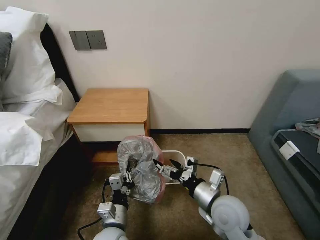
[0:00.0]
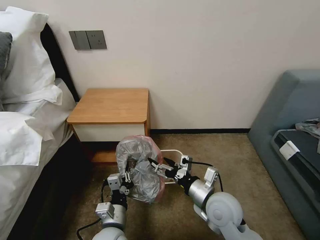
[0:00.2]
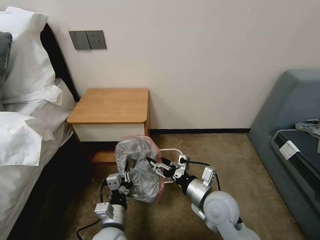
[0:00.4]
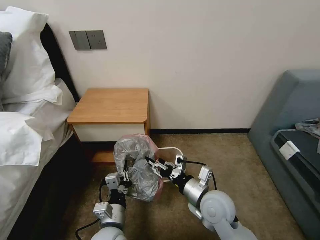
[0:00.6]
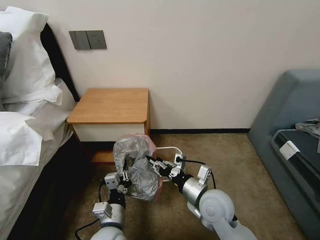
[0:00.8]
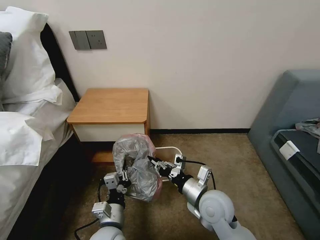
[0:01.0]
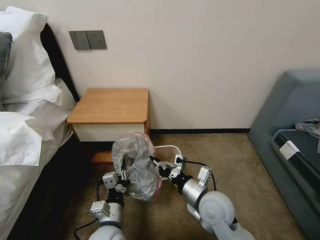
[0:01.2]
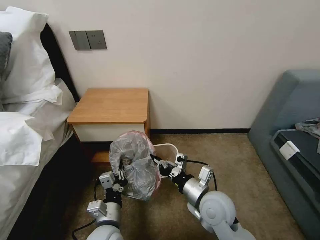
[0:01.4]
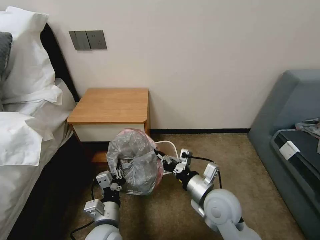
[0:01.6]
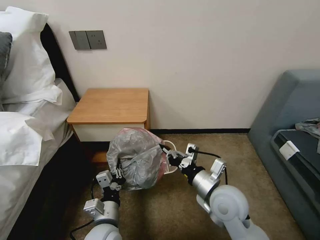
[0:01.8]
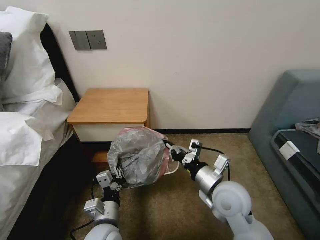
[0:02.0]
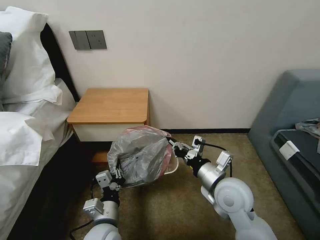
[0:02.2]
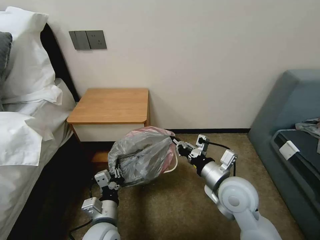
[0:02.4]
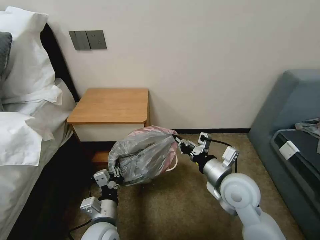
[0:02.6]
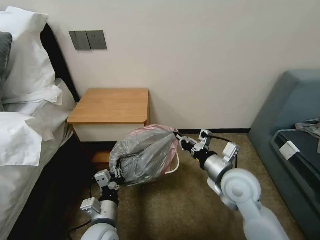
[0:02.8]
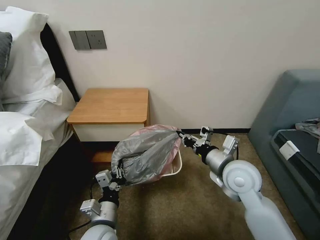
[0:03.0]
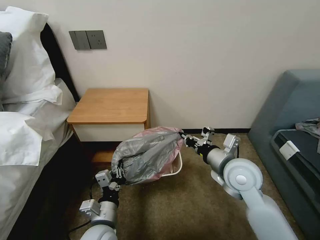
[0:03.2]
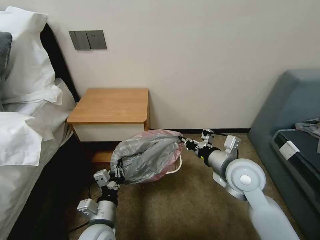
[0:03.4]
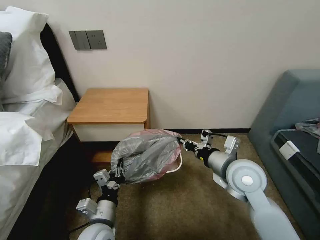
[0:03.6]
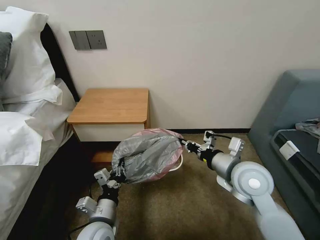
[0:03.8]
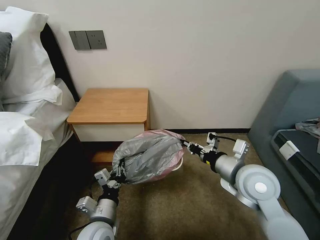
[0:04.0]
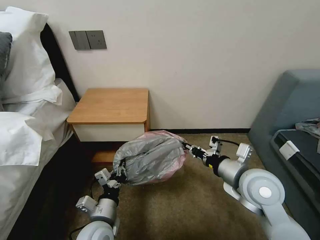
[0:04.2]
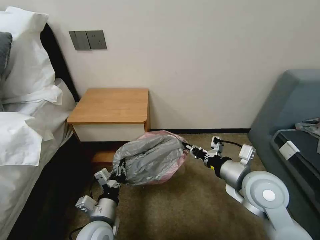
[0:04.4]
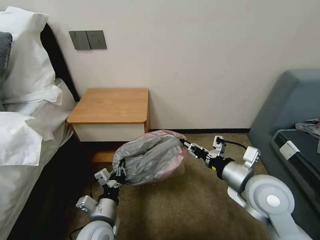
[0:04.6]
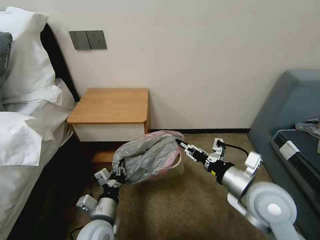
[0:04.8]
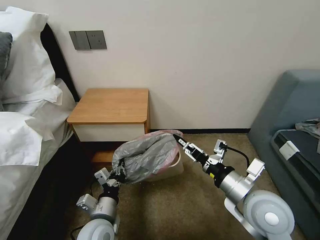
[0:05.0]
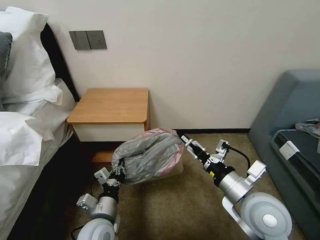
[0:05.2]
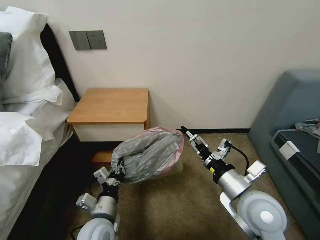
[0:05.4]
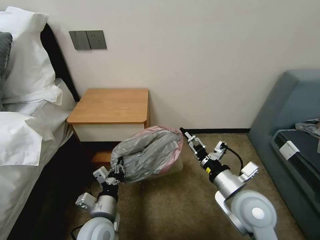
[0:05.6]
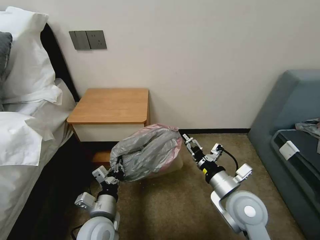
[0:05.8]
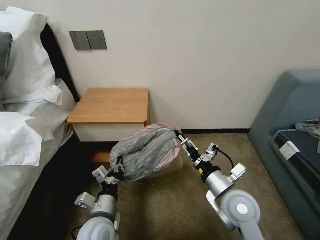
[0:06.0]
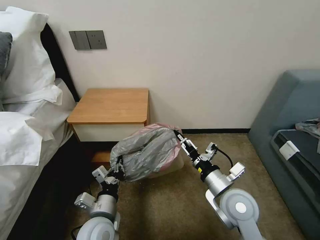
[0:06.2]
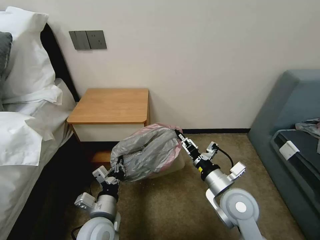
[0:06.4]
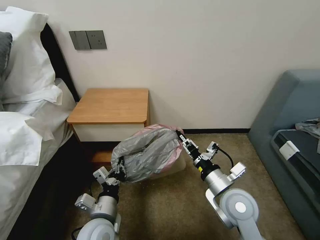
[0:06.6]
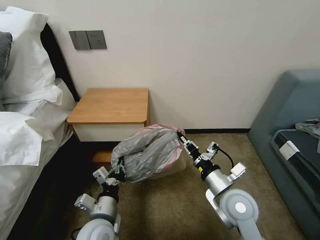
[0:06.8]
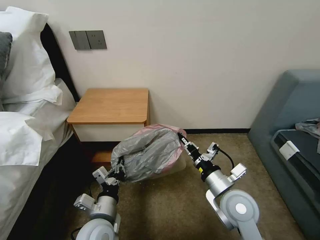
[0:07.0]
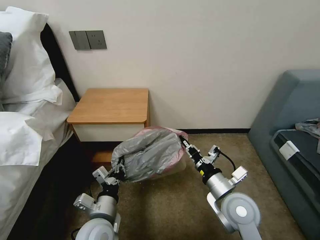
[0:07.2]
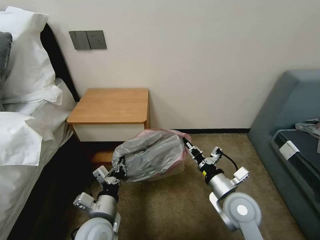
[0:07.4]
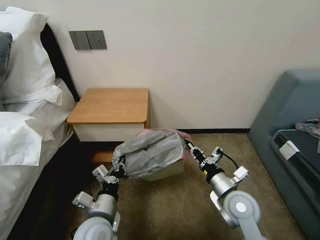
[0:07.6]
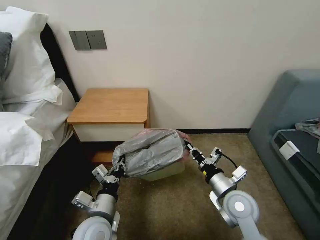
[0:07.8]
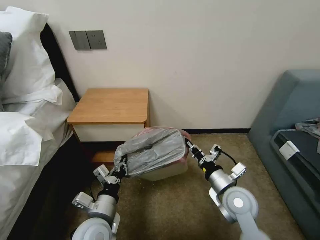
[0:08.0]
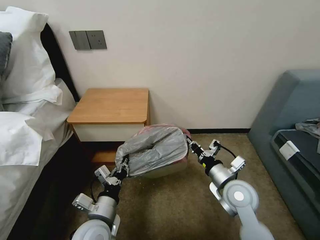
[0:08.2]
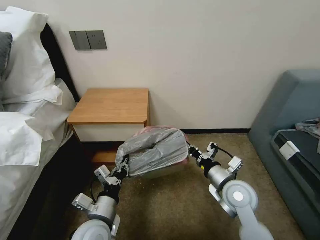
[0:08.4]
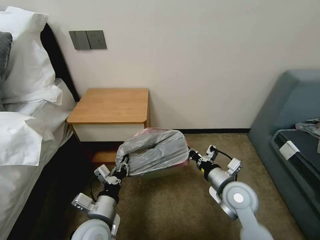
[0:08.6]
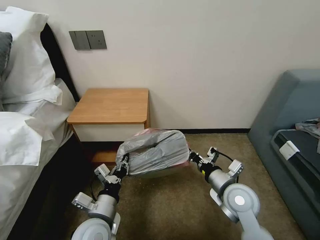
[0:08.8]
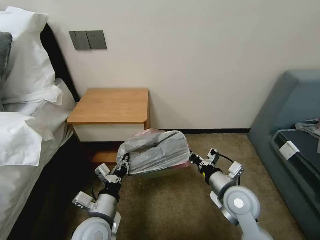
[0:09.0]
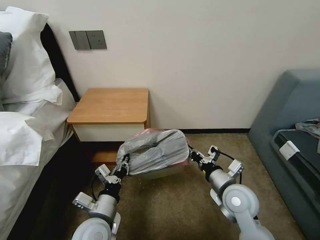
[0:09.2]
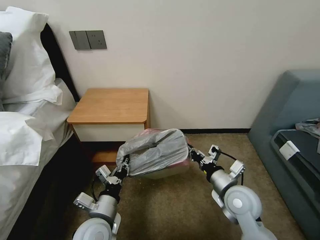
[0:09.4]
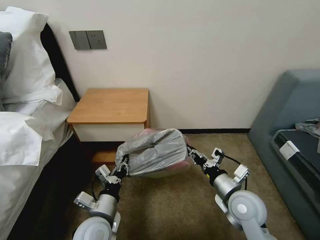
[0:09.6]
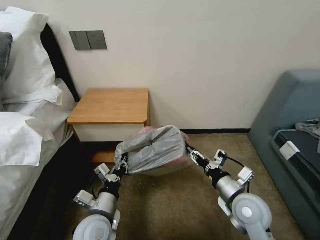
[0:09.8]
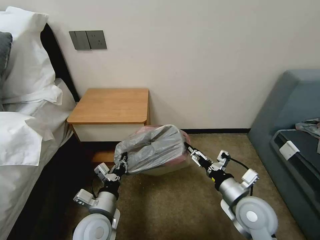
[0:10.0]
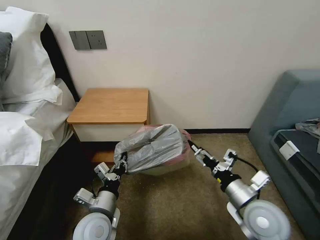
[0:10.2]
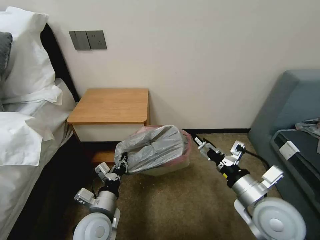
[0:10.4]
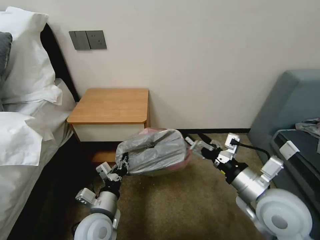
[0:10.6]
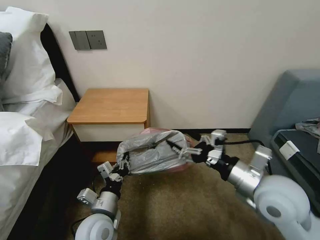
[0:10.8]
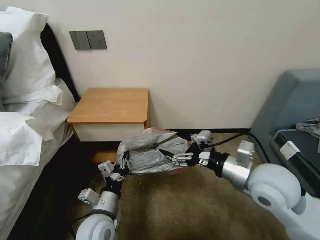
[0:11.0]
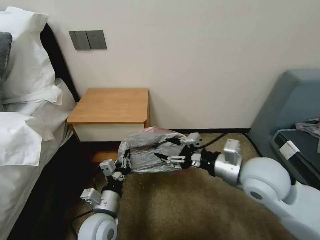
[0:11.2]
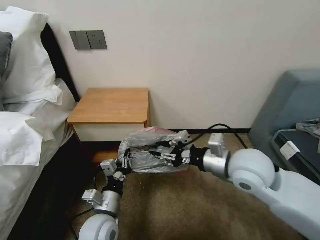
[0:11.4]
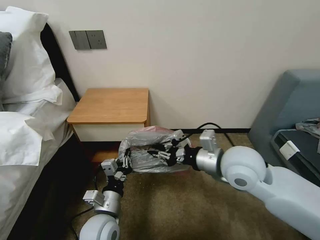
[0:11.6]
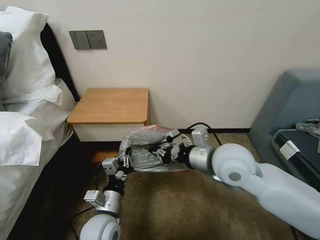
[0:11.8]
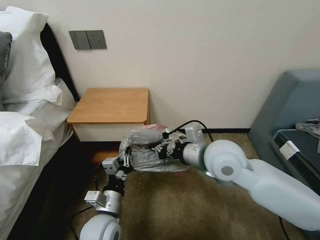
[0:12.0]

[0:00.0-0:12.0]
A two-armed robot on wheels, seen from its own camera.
Task of the whole recording: Pick up the garbage bag from the table and place it over the trash can.
0:00.0 to 0:01.6: The right gripper closes.
0:01.6 to 0:03.0: The right gripper travels upward, forward and to the right by about 10 cm.
0:03.0 to 0:04.4: The right gripper moves some 5 cm.
0:04.4 to 0:06.0: The right gripper moves downward, roughly 5 cm, and opens.
0:06.0 to 0:07.6: The right gripper closes its fingers.
0:07.6 to 0:09.0: There are only small adjustments of the grippers.
0:09.0 to 0:10.4: The right gripper moves upward and backward, some 10 cm, and opens.
0:10.4 to 0:12.0: The right gripper travels forward, to the left and upward by approximately 15 cm, and closes its fingers.

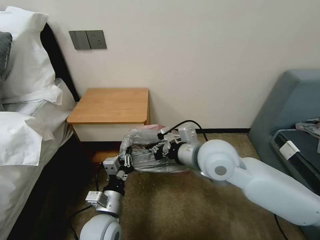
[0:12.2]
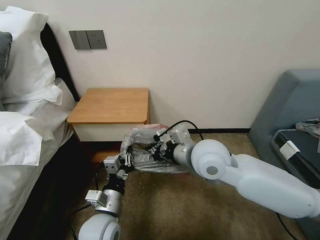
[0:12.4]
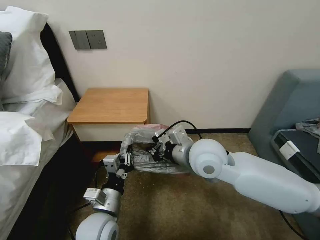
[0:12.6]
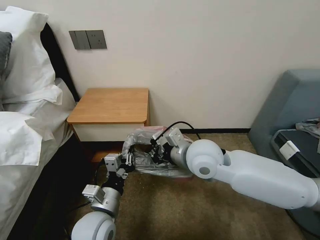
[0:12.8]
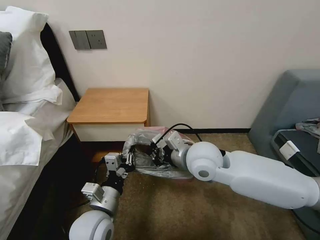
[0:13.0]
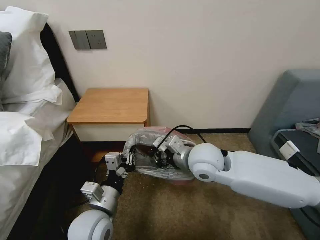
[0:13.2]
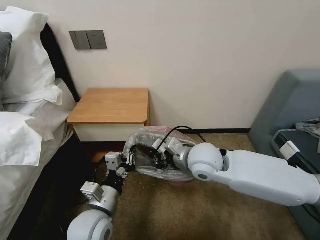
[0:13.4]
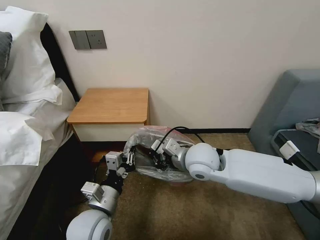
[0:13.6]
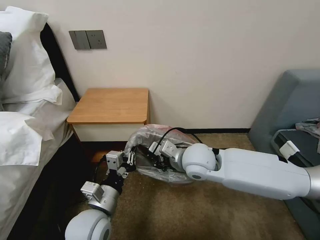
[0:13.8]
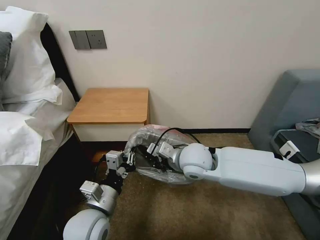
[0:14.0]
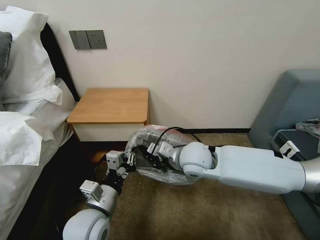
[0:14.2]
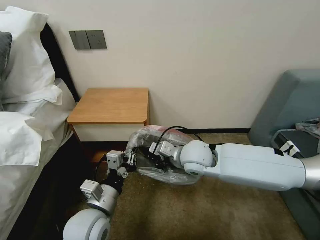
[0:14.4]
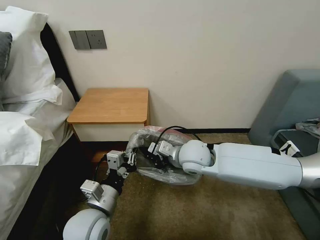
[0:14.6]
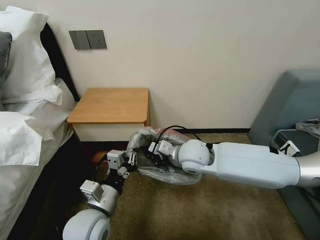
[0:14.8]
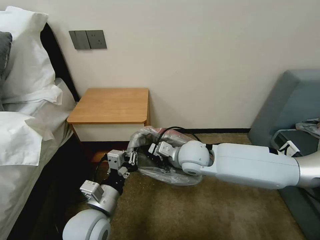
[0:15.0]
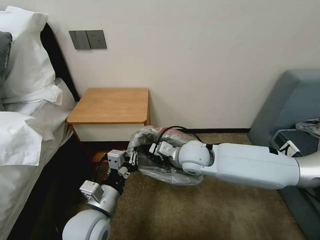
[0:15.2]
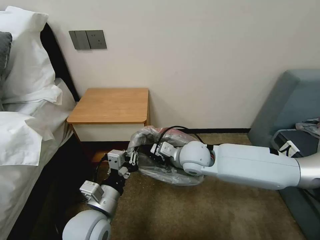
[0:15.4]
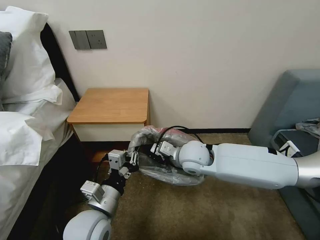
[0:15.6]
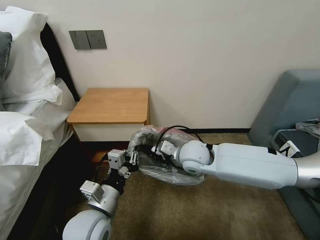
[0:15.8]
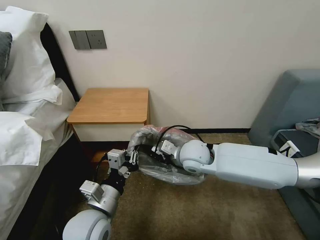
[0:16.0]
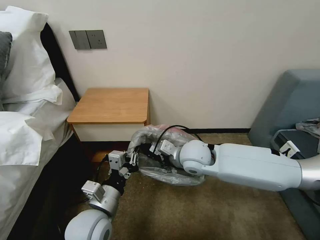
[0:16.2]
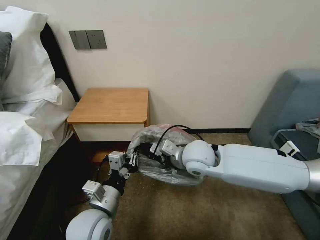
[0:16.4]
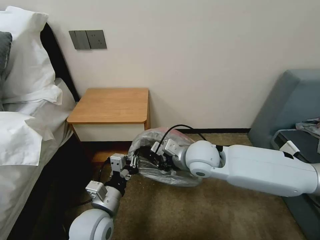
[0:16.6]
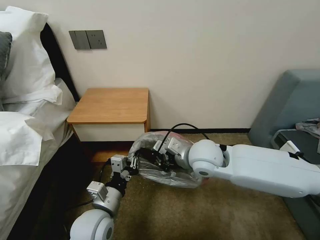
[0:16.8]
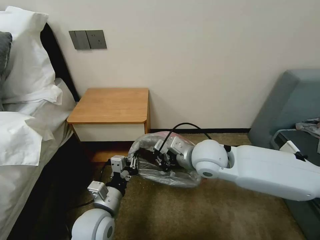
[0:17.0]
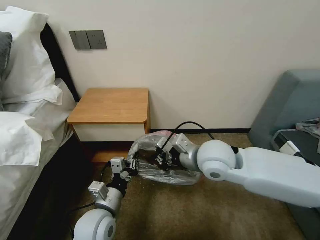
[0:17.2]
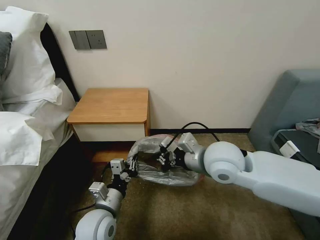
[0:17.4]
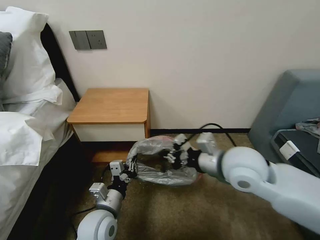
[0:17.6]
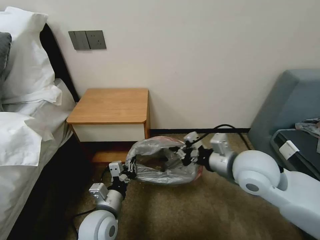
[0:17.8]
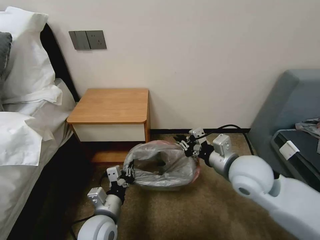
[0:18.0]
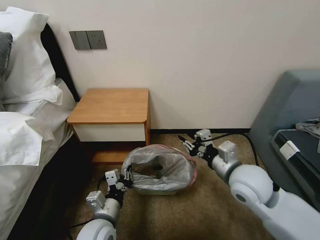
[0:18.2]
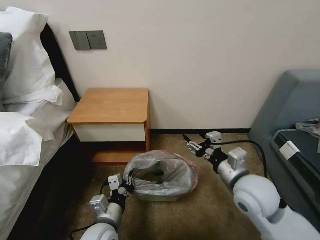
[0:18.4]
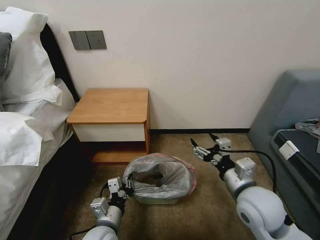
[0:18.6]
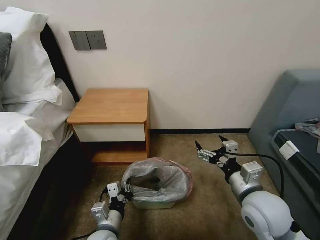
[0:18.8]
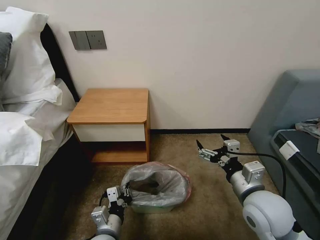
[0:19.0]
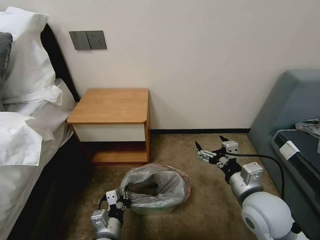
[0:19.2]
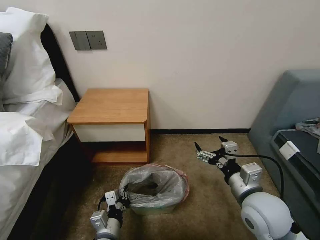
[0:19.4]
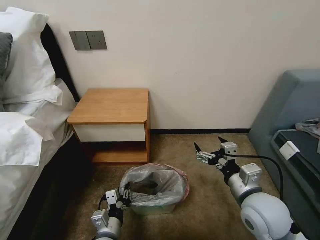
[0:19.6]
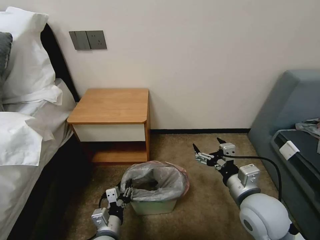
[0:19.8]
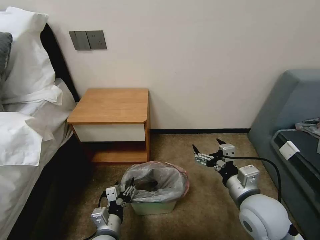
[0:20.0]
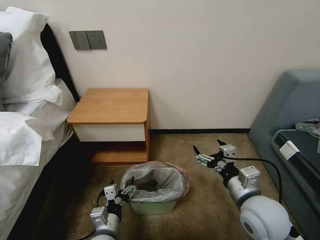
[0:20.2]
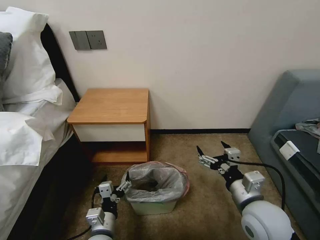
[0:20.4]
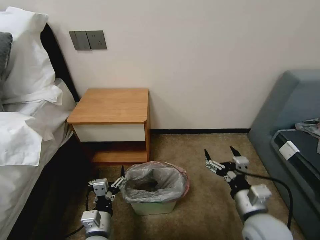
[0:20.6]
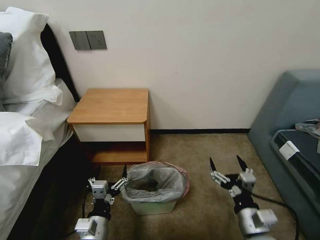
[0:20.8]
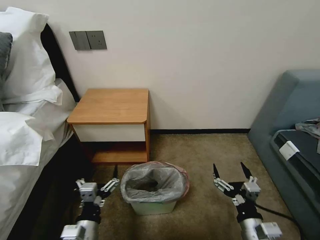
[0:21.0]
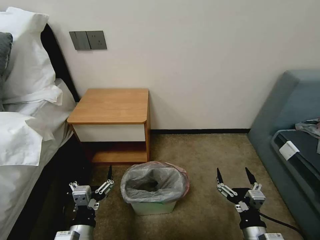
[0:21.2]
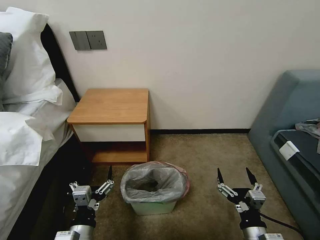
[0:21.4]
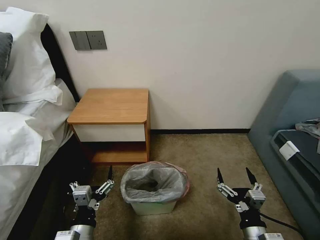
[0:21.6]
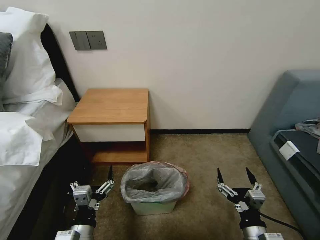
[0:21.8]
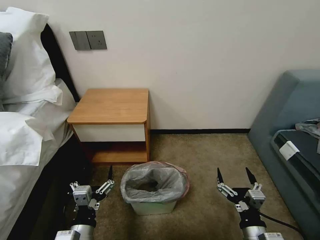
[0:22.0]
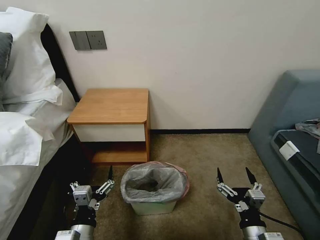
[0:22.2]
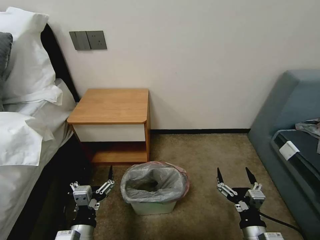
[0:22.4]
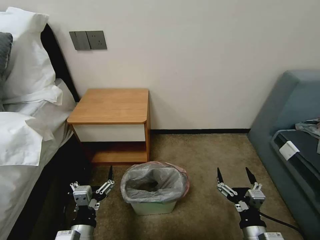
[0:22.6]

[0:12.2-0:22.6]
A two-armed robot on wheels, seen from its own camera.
Task of the whole recording: Pick up the garbage bag from the table and place it over the trash can.
0:12.2 to 0:13.6: The right gripper moves downward, approximately 5 cm.
0:13.6 to 0:16.6: The grippers move only a little.
0:16.6 to 0:18.2: The right gripper is displaced to the right and backward by some 15 cm.
0:18.2 to 0:19.6: The left gripper is displaced downward by approximately 5 cm; the right gripper goes about 5 cm backward, and opens.
0:19.6 to 0:21.2: The left gripper travels upward by about 5 cm, and opens its fingers, while the right gripper is displaced downward and backward by about 15 cm.
0:21.2 to 0:22.6: Both grippers stay put.
